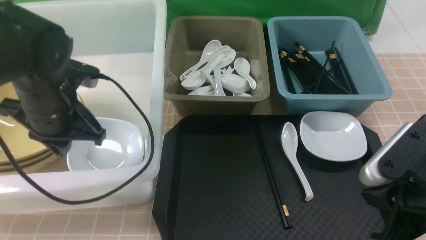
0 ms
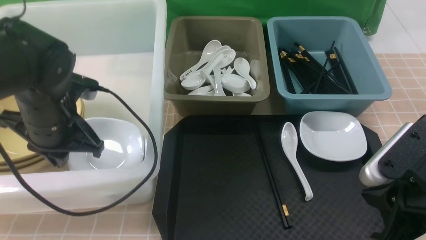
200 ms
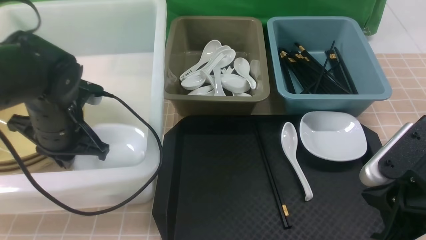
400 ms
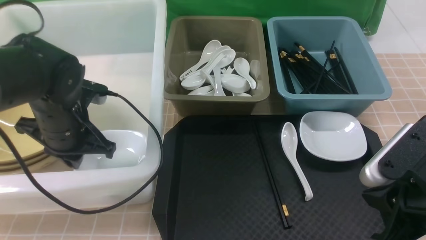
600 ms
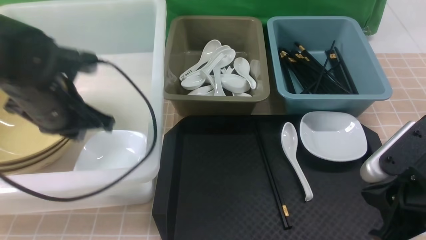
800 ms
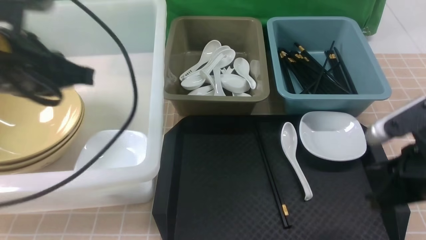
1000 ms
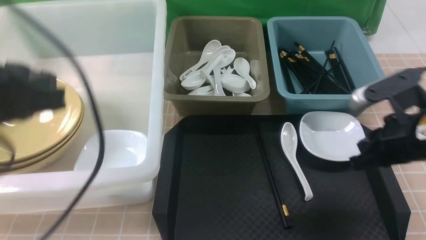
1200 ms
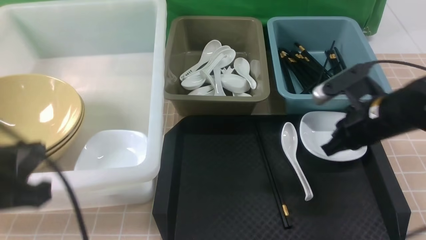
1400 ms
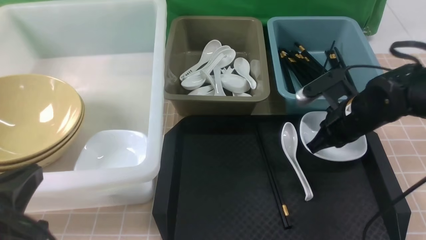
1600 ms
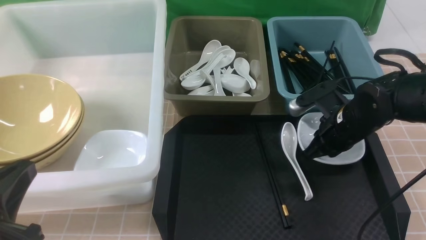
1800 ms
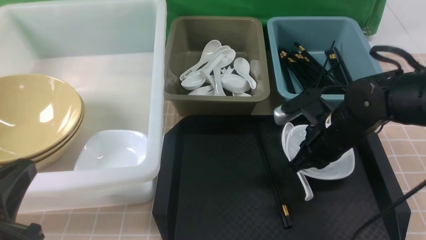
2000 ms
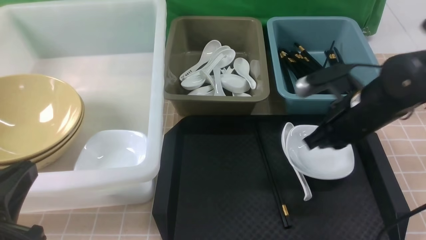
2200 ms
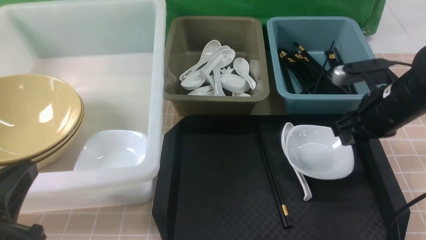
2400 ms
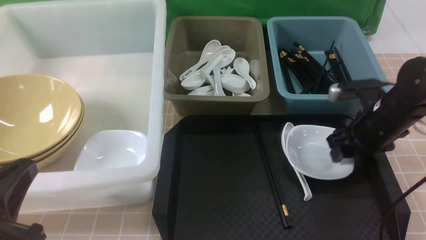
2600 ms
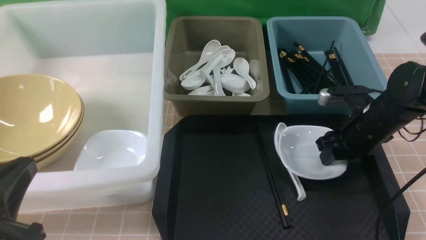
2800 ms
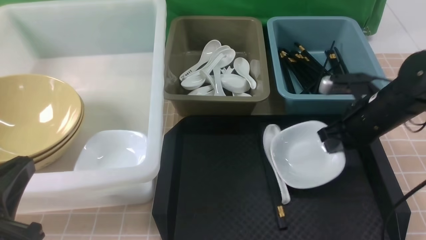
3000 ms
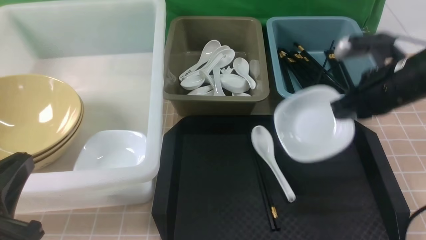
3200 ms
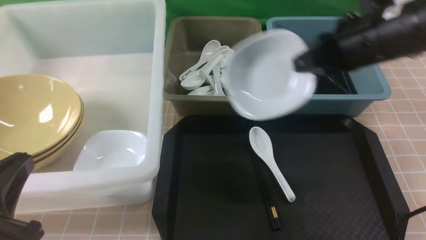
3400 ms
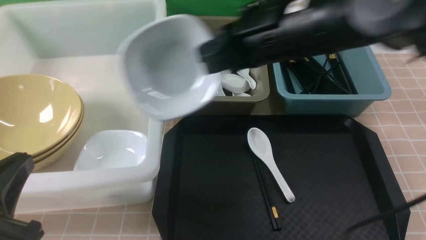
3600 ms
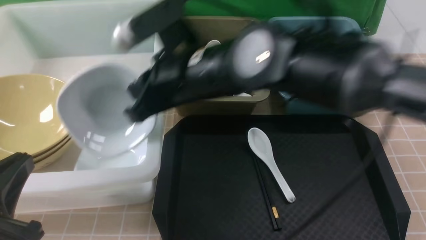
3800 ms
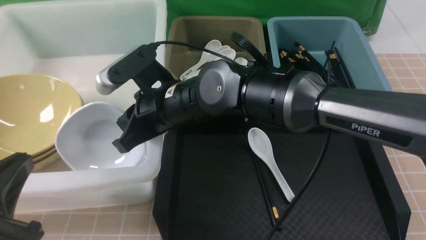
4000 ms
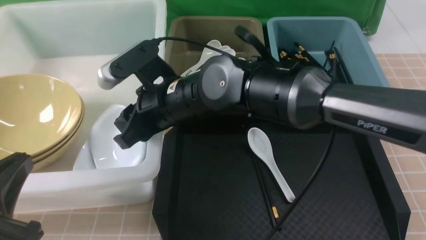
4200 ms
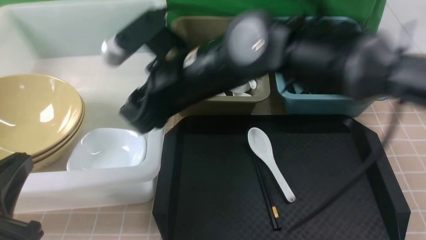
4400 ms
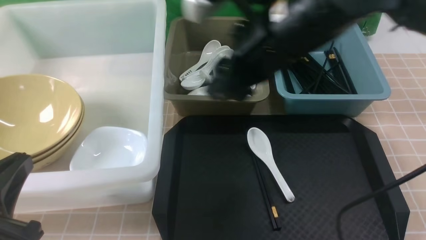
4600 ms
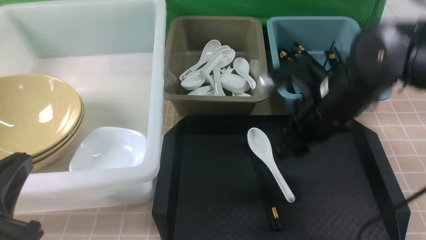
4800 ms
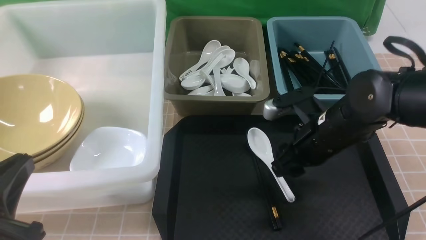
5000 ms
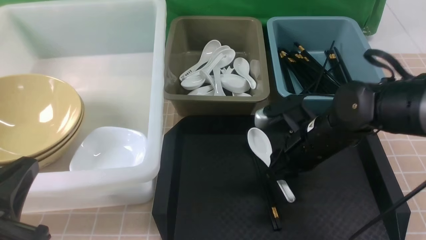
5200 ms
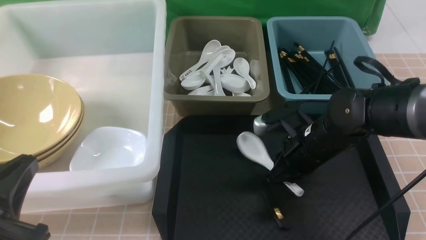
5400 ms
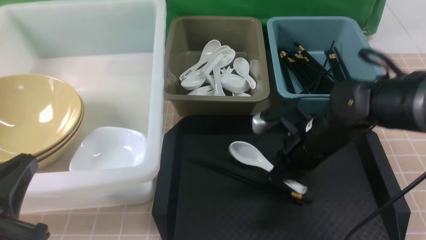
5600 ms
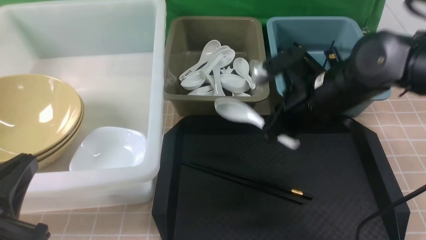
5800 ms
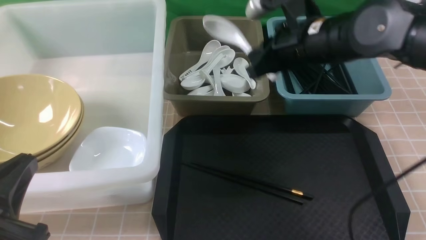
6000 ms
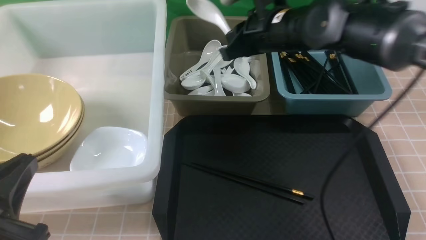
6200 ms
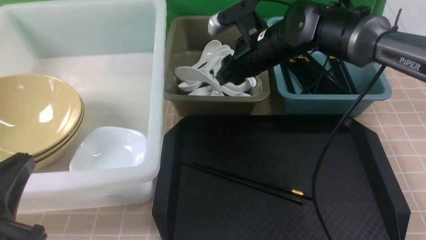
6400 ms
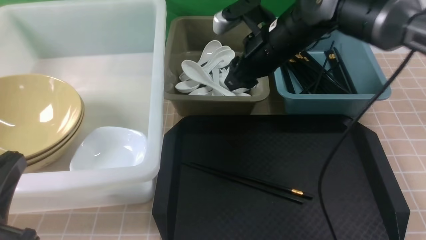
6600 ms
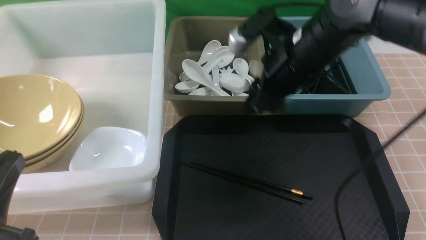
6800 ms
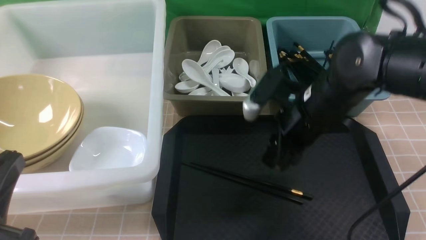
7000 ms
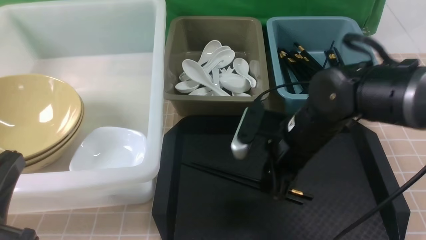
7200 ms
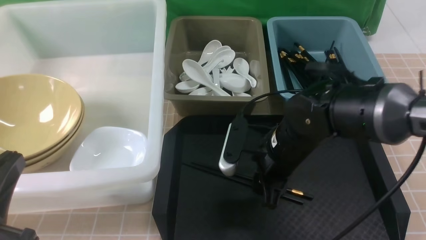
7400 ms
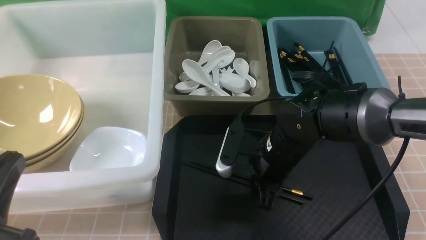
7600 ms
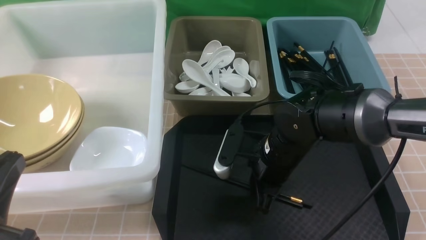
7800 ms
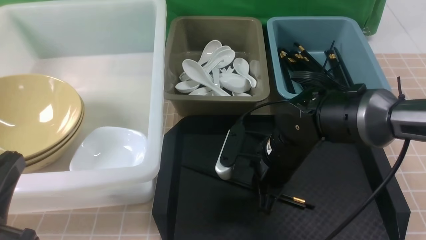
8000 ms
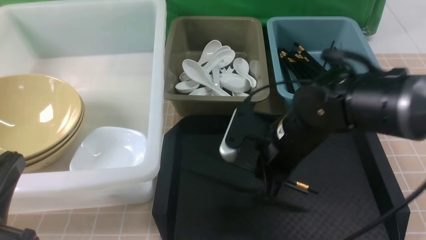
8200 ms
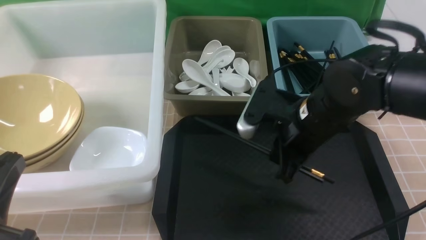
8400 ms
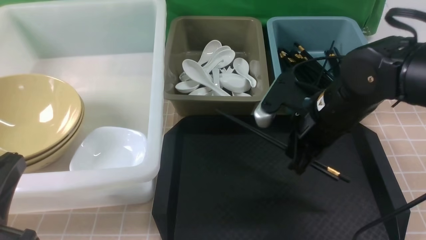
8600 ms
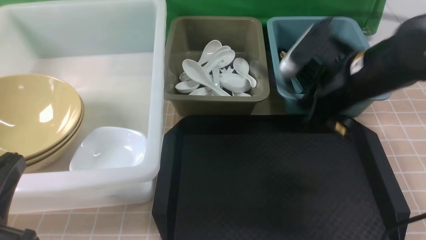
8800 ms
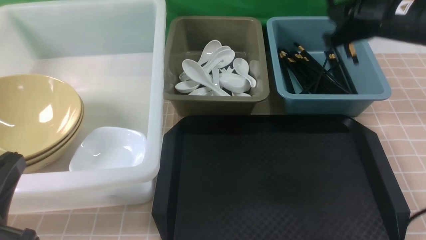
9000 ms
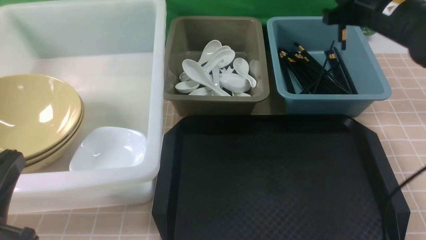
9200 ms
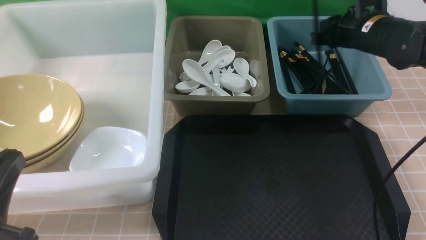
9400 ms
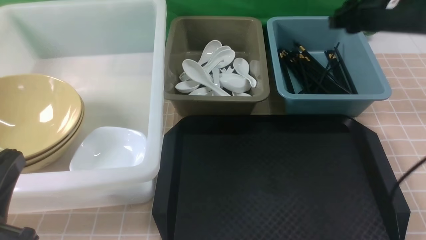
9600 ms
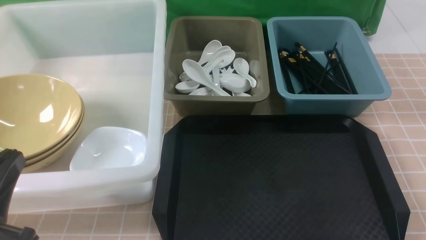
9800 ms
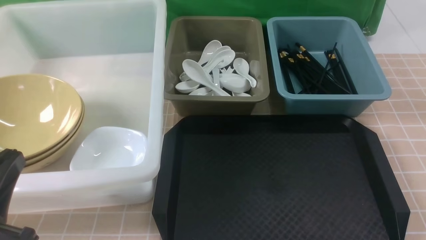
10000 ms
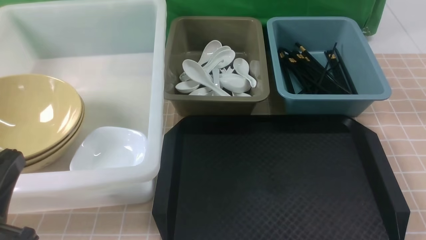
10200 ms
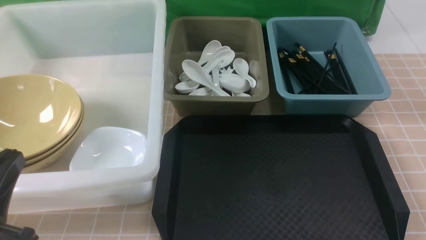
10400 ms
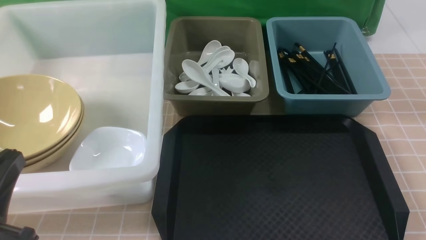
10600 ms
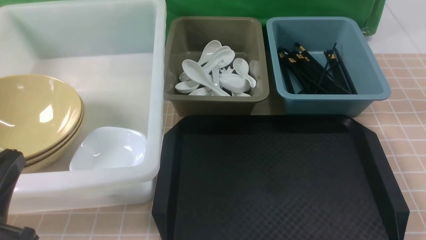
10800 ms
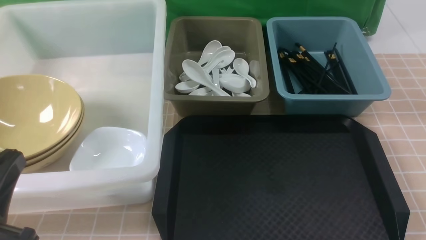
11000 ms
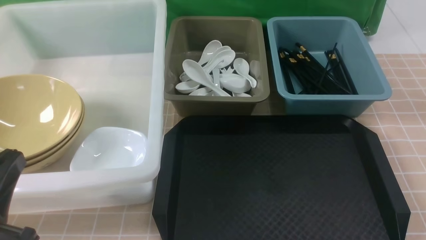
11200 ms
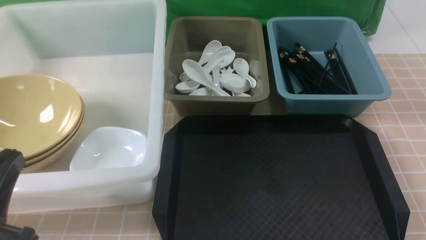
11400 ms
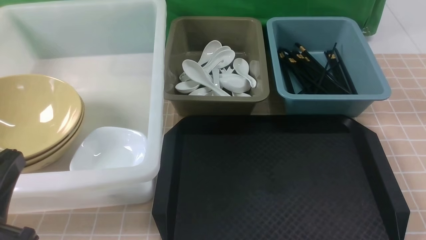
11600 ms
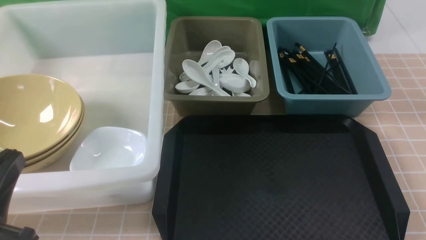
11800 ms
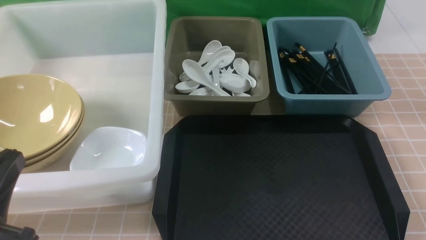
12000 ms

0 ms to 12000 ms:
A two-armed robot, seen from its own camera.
Task of the whole recording: on brown table put chopsticks spoon bowls plates into blue grey white boxes.
Step, 1000 ms to 3000 ms: use the right arm to grab the plate.
Step, 3200 ms to 4400 ms: use the right arm to put the plate into the large storage box on the left.
Step, 4600 ms to 6000 ms: use the right arm to grab the soup spoon in the middle.
Step, 6200 ms to 6800 ms: use the right arm to put the soup spoon into the small storage box in the middle.
Step, 7200 ms to 8400 ms: use the right arm to grab the chopsticks.
Step, 8600 ms to 9800 ms: use the right arm to put the chopsticks into the small storage box on the right.
0 ms to 1600 ms: The right gripper goes approximately 20 cm forward, while the left gripper travels backward by some 20 cm.
1600 ms to 3000 ms: The right gripper opens, then closes again.
3000 ms to 4400 ms: The right gripper goes about 25 cm to the left and upward, and opens up.
4400 ms to 6000 ms: The right gripper heads to the right and forward, covering approximately 15 cm, goes downward and returns, some 15 cm each way, and closes up.
6000 ms to 7600 ms: The right gripper moves downward and backward, approximately 15 cm, and opens its fingers.
7600 ms to 9000 ms: The right gripper shifts about 20 cm upward, to the right and forward, and closes.
9000 ms to 10400 ms: The right gripper is displaced backward by roughly 25 cm.

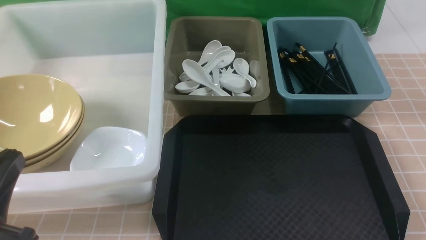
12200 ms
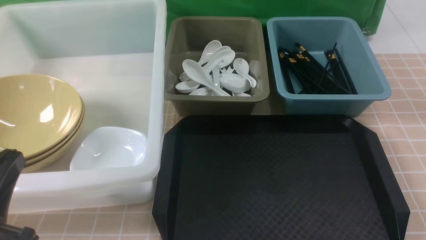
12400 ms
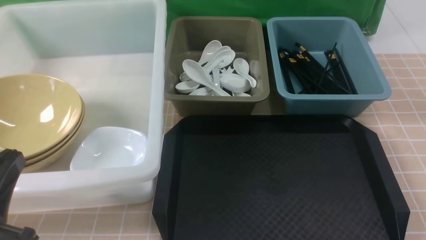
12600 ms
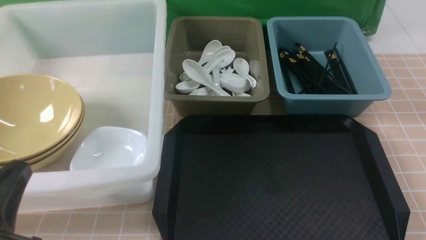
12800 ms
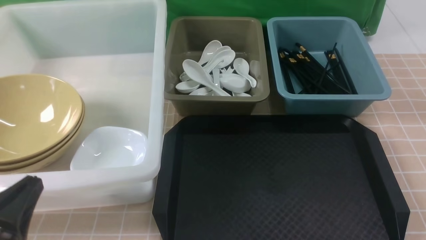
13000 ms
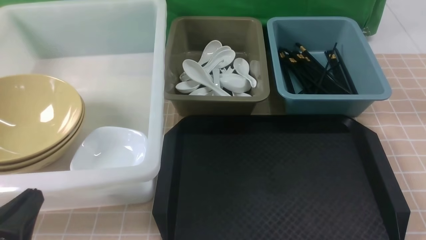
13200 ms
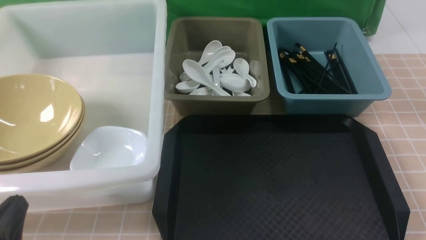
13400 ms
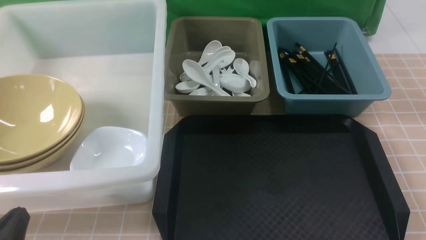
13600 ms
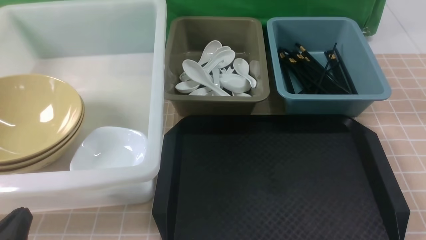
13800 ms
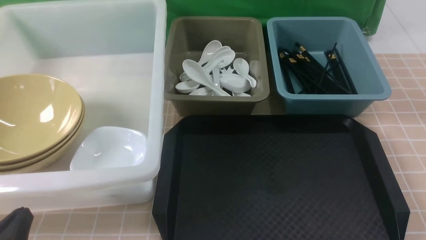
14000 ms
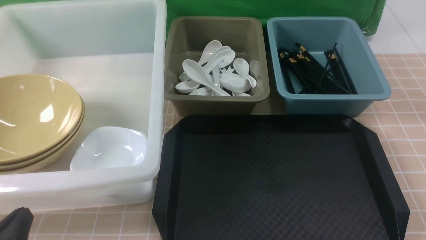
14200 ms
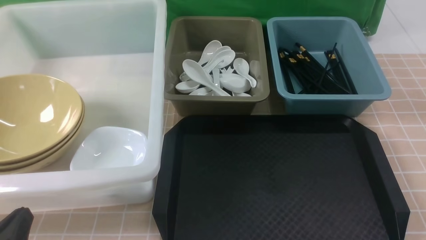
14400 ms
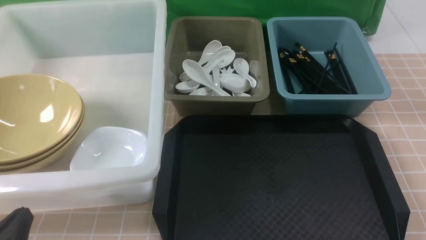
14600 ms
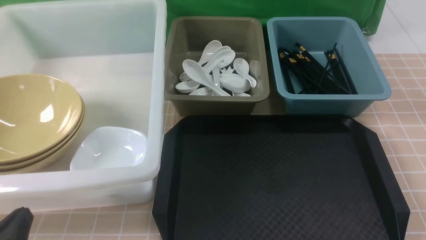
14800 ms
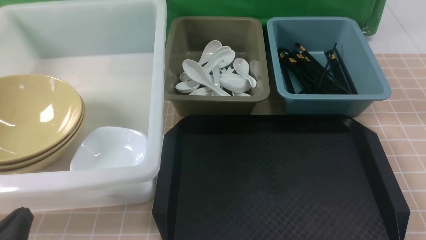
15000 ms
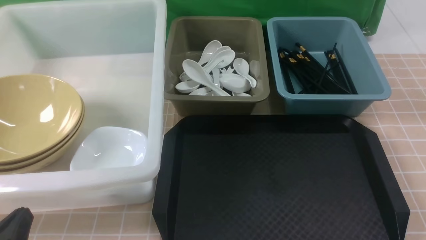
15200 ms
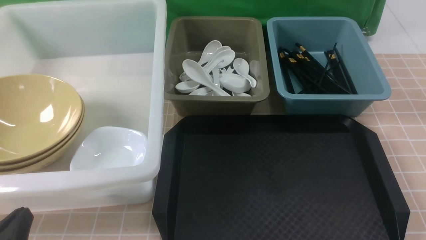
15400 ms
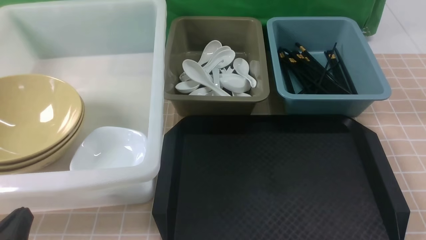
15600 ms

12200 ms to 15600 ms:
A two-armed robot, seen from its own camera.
Task of the whole recording: on brown table put chopsticks spoon bowls plates into blue grey white boxes.
12200 ms to 13800 ms: The left gripper heads downward, covering approximately 10 cm.
13800 ms to 15600 ms: Both grippers stay put.
